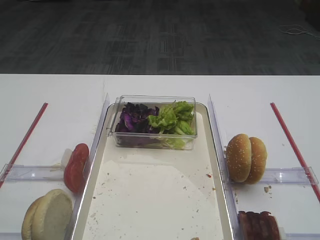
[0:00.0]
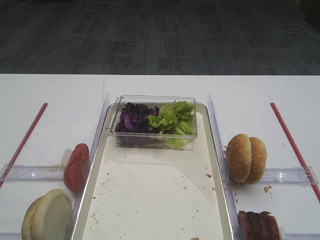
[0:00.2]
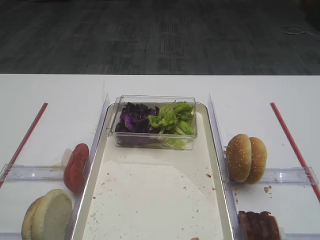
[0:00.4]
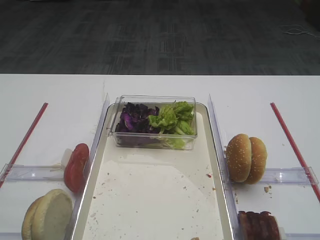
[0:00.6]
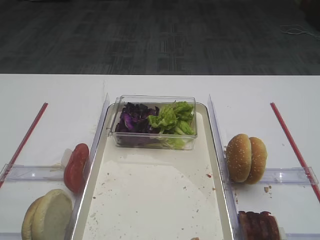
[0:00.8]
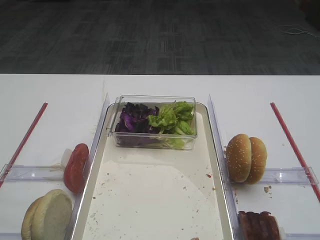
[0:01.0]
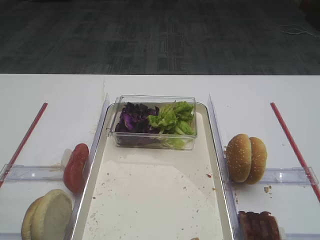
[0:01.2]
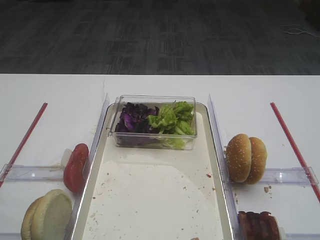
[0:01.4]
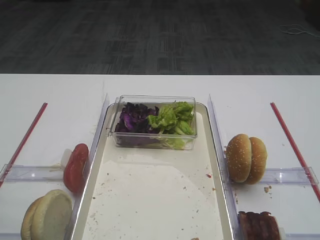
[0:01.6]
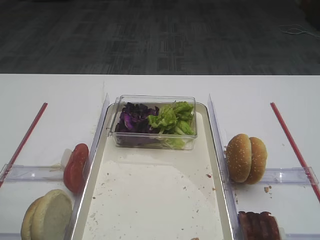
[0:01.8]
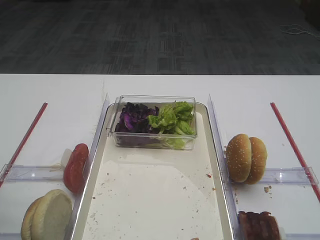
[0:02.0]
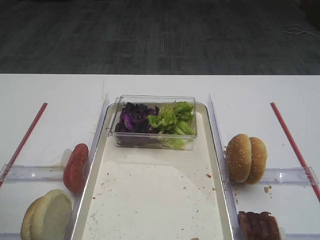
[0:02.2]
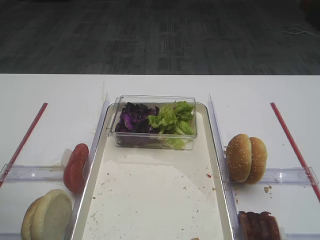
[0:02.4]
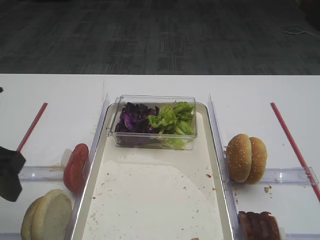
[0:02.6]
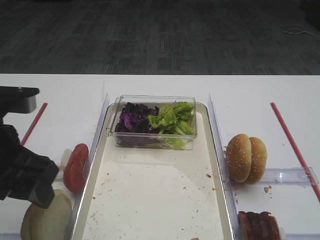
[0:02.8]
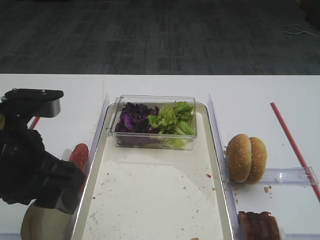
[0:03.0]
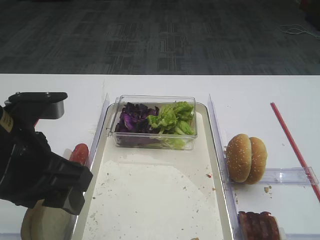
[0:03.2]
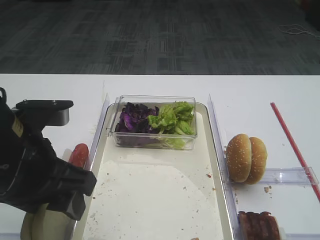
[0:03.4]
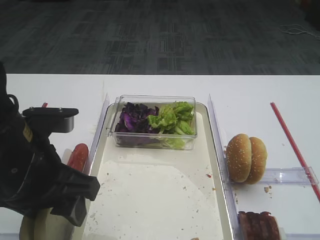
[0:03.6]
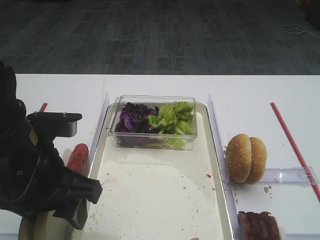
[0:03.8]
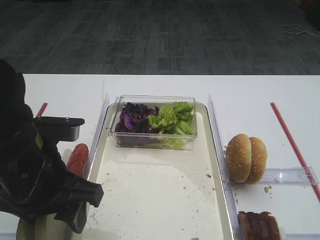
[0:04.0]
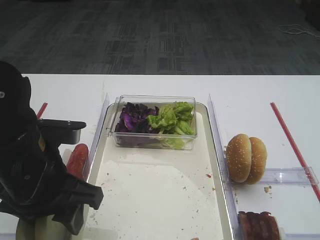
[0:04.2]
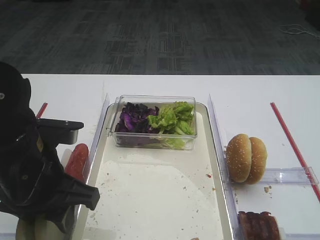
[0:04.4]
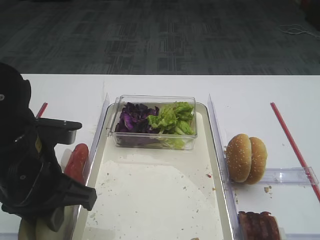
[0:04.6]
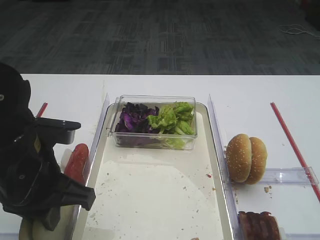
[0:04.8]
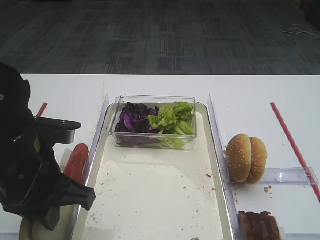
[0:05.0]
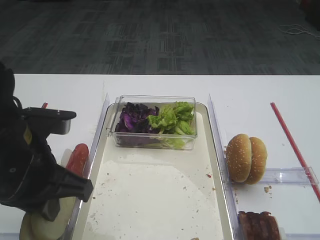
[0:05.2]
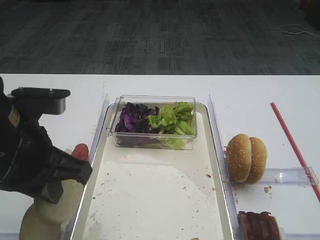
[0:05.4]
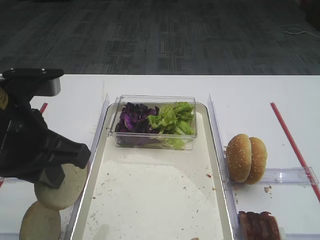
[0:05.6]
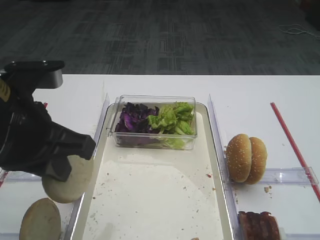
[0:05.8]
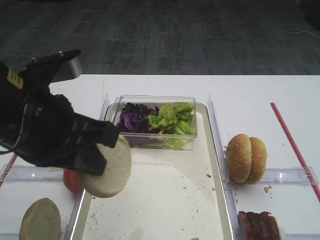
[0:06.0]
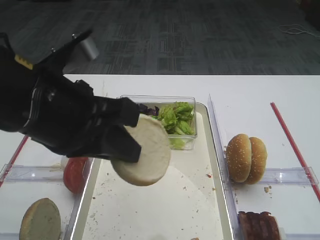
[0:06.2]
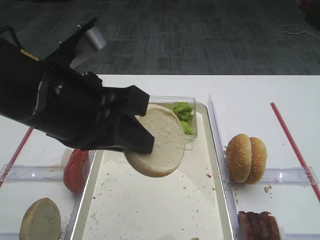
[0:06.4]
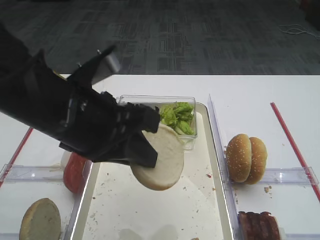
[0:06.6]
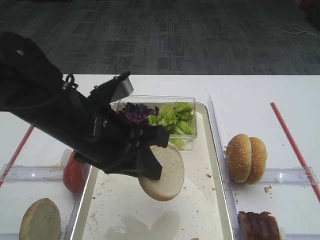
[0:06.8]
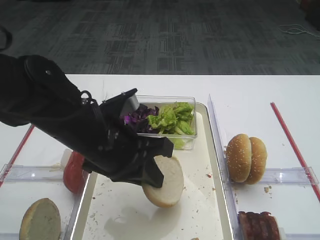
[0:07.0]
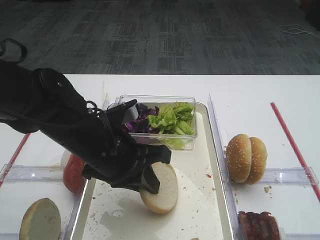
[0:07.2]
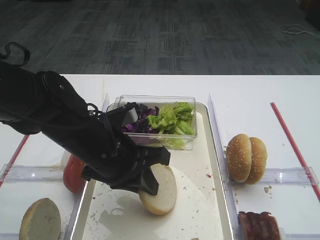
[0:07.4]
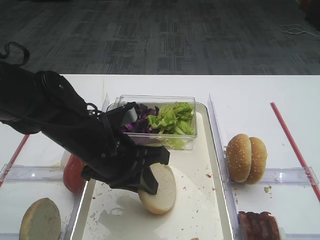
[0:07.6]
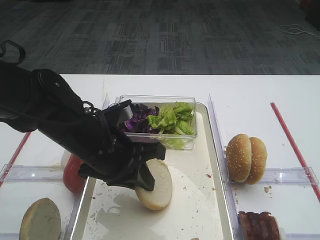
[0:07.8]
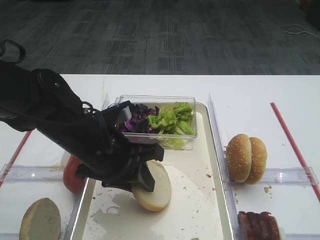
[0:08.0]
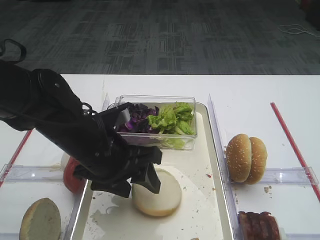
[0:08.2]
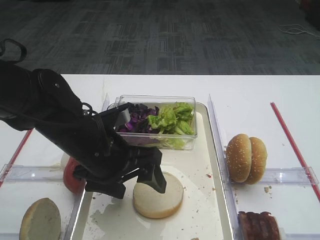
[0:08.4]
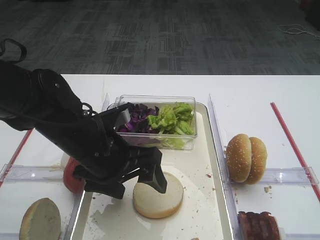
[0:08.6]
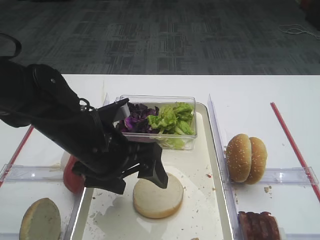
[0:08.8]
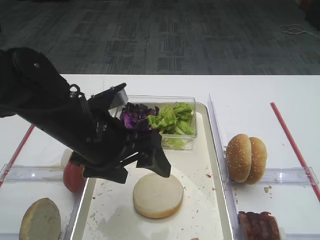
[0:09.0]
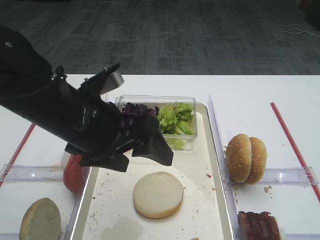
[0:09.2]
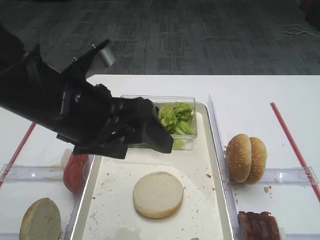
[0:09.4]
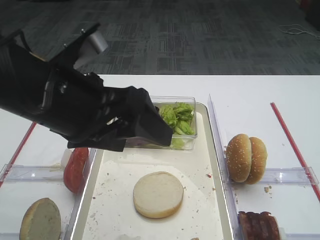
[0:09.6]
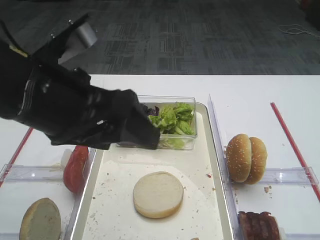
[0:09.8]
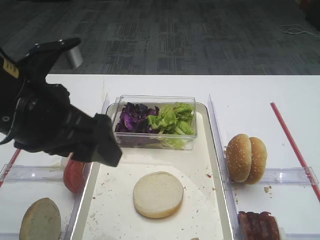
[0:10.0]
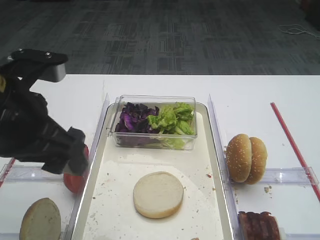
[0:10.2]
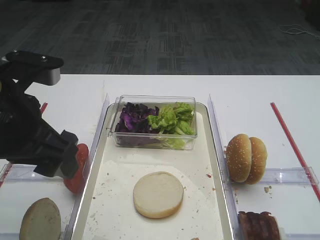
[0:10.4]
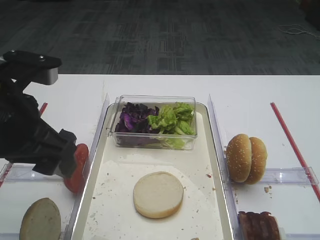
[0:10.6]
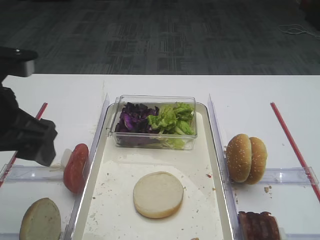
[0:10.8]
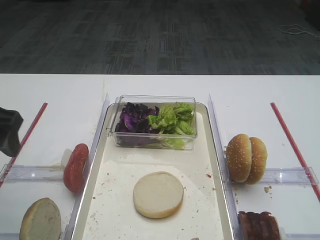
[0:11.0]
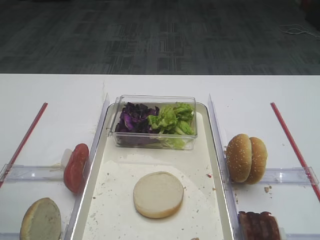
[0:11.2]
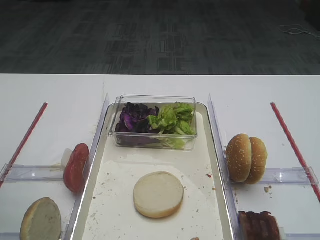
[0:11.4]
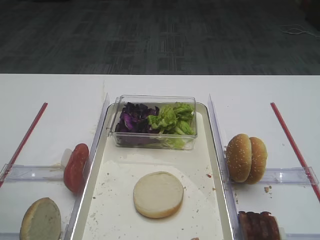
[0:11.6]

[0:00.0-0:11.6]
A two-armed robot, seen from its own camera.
Step, 0:00.0 to 0:05.4: Pick up the bread slice with the left gripper.
Step, 0:05.8 to 0:08.6: Place the bread slice on the tray with the left gripper.
0:01.4 to 0:02.8: The left gripper is displaced to the right and forward by approximately 10 cm.
0:02.8 to 0:04.4: The left gripper travels to the right by some 5 cm.
0:04.4 to 0:05.8: The left gripper heads upward, covering approximately 5 cm, and closes.
0:05.8 to 0:07.2: The left gripper heads downward, to the right and forward, covering approximately 15 cm.
0:07.2 to 0:08.8: The left gripper opens.
0:08.8 to 0:10.2: The left gripper moves upward, to the left and backward, some 15 cm.
0:10.2 to 0:11.6: The left gripper goes some 10 cm to the left.

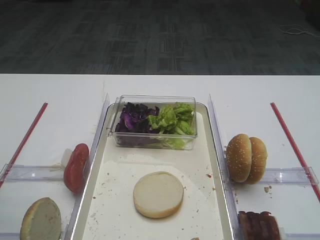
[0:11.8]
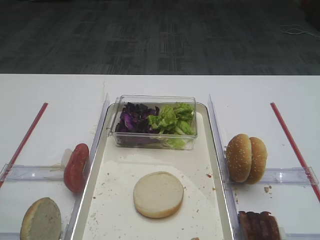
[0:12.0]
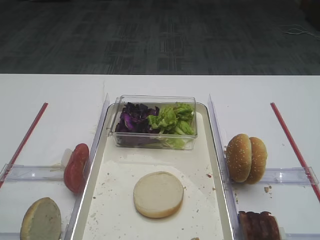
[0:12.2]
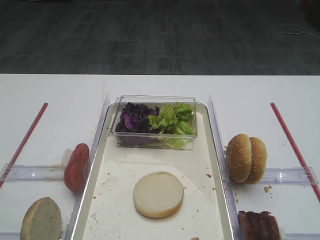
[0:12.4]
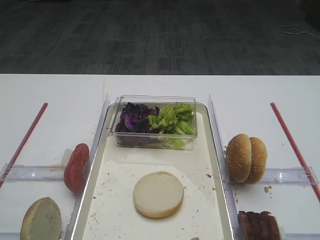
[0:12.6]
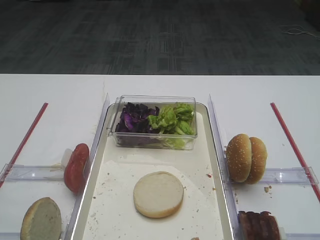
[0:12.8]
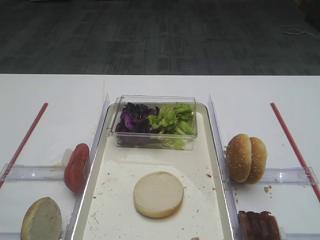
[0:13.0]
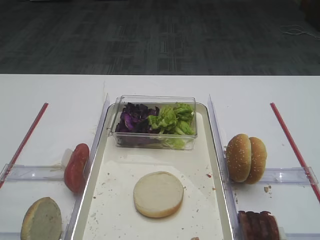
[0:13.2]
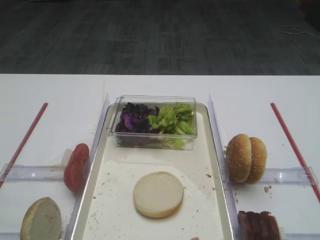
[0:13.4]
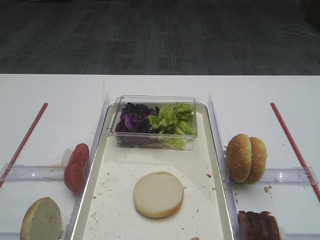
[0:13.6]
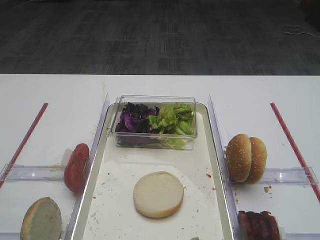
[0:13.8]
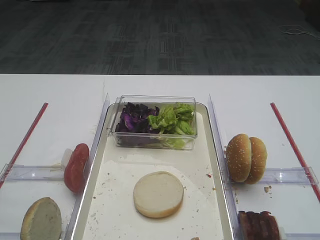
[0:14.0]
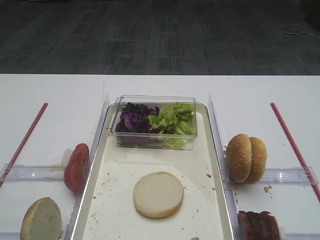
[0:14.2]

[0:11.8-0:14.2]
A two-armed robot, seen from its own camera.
0:13.0 to 0:14.2: Both grippers stay put.

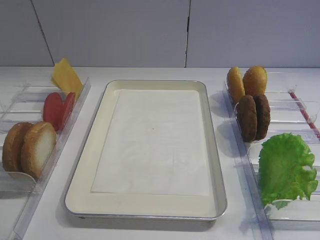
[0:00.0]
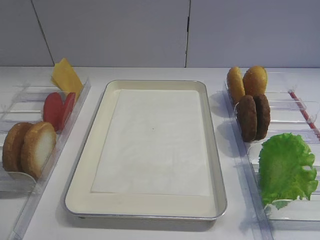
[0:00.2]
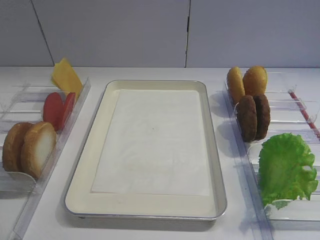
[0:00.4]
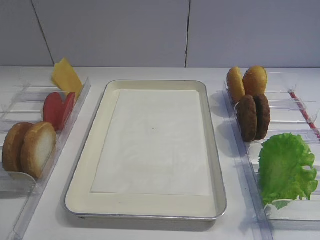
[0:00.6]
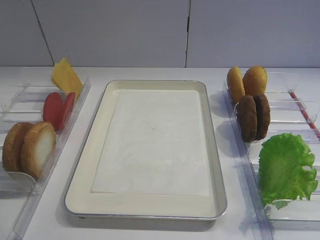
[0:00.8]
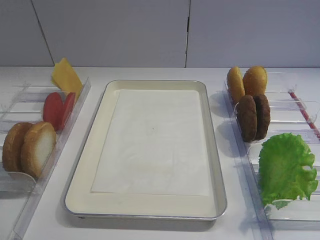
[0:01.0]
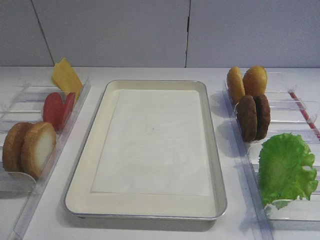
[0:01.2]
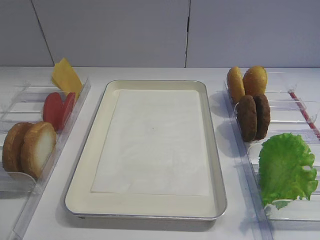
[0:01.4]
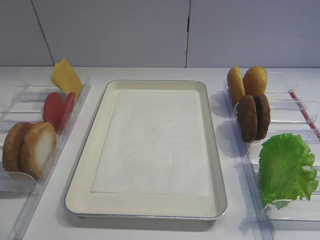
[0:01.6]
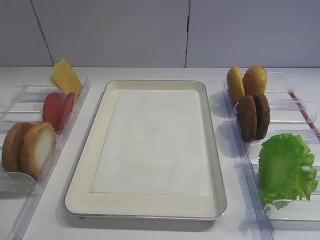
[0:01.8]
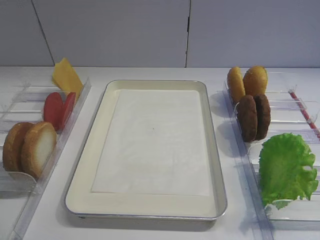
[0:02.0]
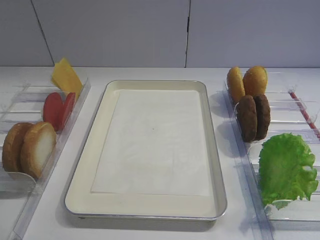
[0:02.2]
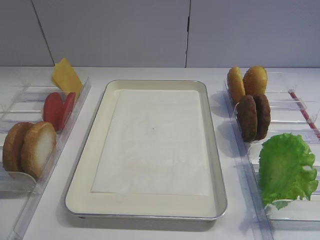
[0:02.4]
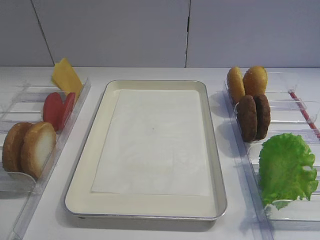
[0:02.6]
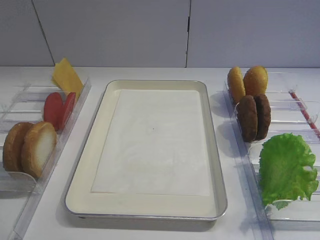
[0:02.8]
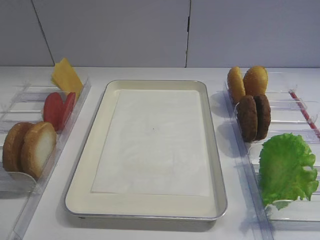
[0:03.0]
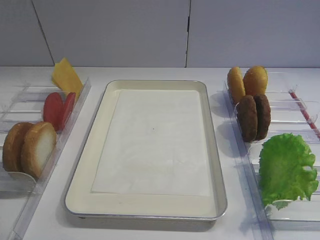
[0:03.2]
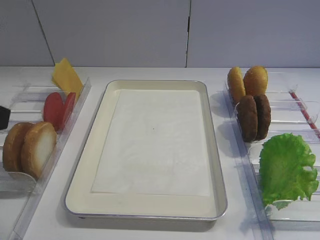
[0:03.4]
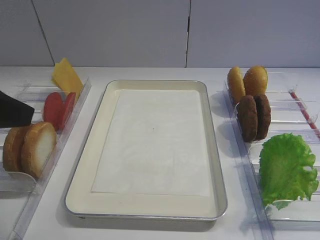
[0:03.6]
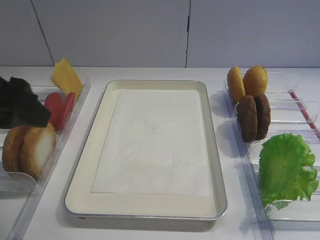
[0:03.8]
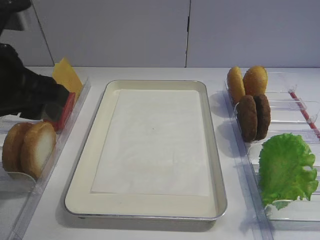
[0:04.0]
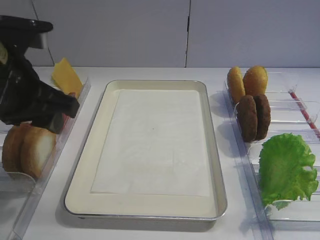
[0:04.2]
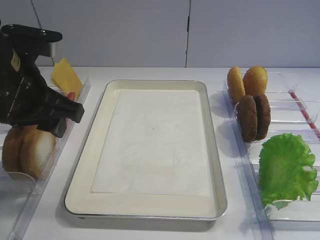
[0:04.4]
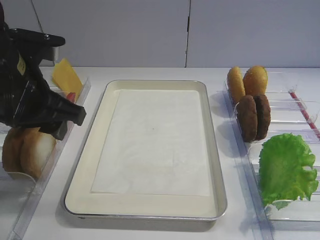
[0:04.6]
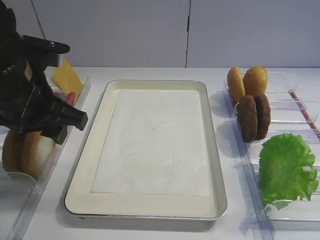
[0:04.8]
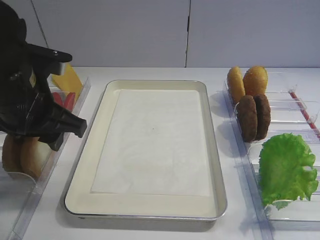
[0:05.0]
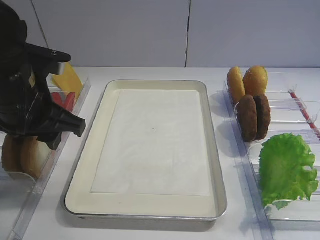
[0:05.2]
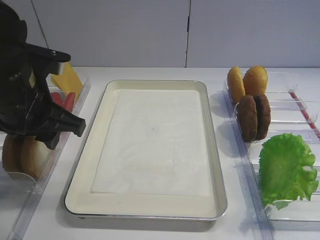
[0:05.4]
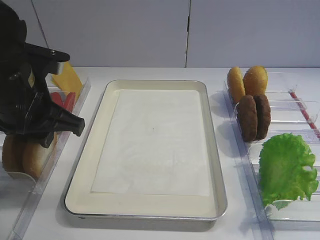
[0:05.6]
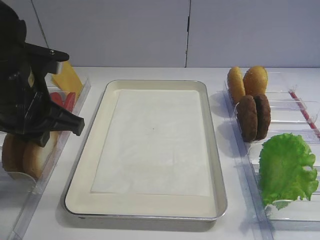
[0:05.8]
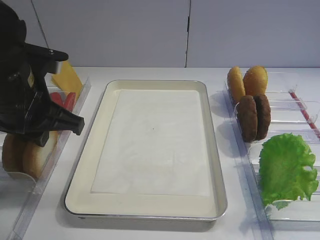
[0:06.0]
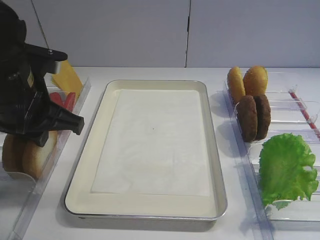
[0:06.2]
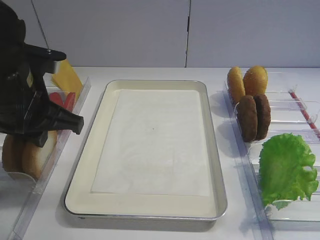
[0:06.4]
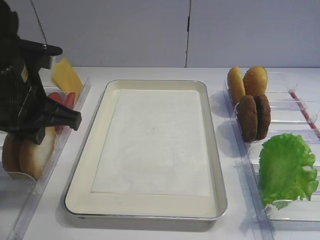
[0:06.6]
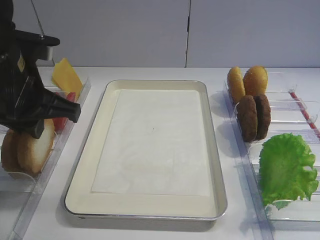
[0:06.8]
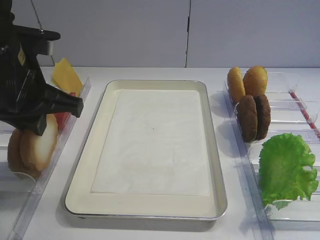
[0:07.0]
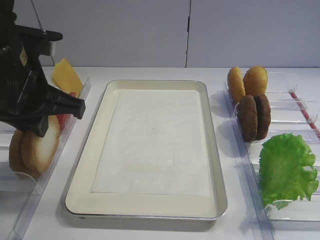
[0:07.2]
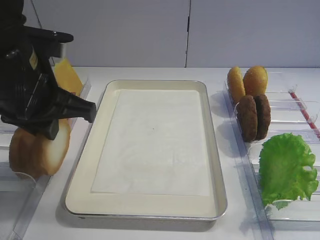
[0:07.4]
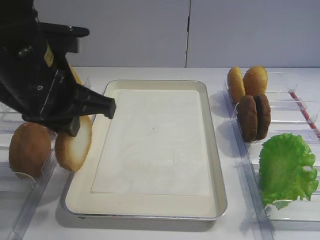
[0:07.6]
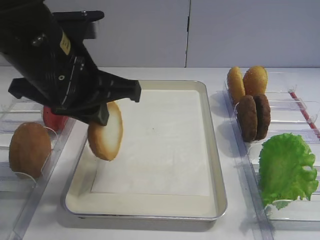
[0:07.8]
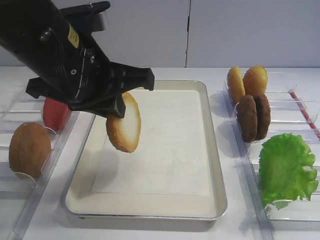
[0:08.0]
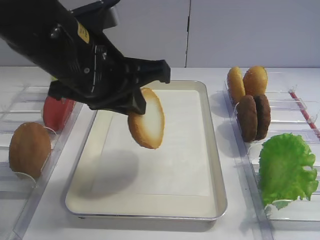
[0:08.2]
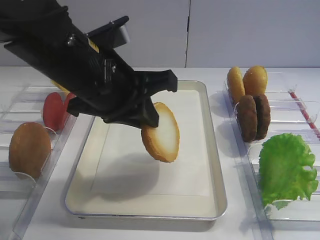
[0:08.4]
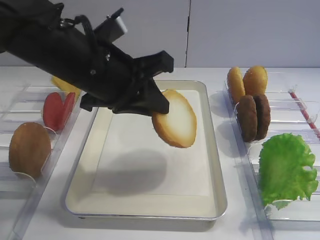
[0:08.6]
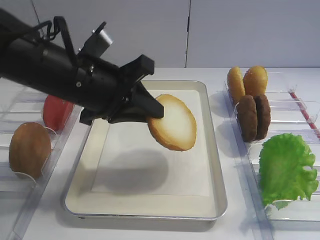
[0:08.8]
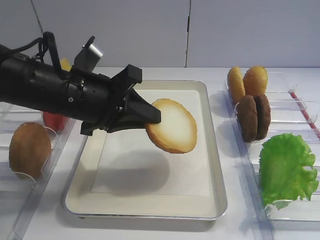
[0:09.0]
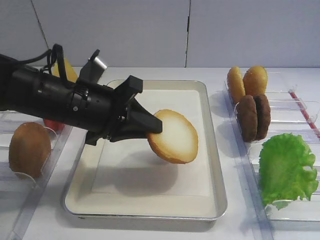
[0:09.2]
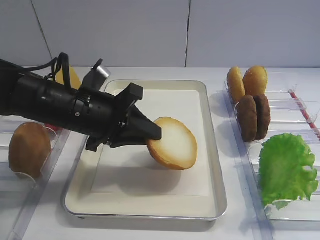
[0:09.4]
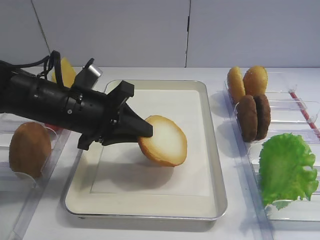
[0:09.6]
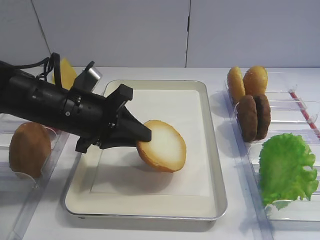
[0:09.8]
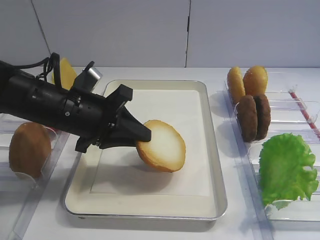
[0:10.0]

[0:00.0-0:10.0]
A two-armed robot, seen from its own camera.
Step, 0:00.0 to 0:07.2: Pick up the bread slice with the left gripper.
0:02.8 to 0:04.2: The left gripper moves forward and to the right, roughly 20 cm.
0:04.2 to 0:05.8: The left gripper closes its fingers.
0:05.8 to 0:07.2: The grippers stay close to where they were, moving slightly.
0:07.2 to 0:08.6: The left gripper travels to the right by about 10 cm.
0:08.6 to 0:10.0: The left gripper shifts some 10 cm downward.
